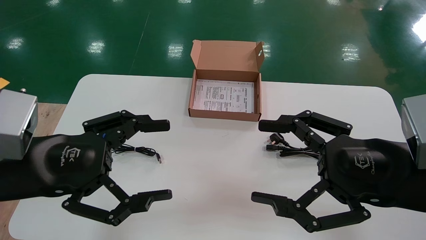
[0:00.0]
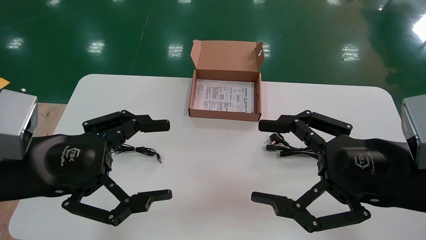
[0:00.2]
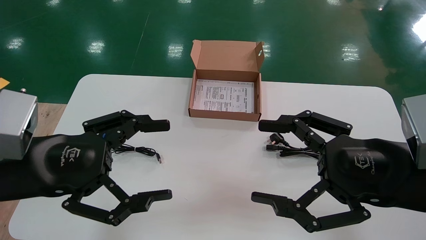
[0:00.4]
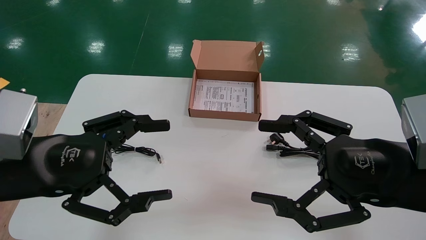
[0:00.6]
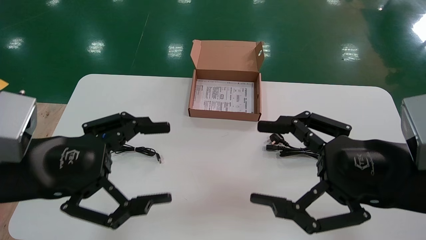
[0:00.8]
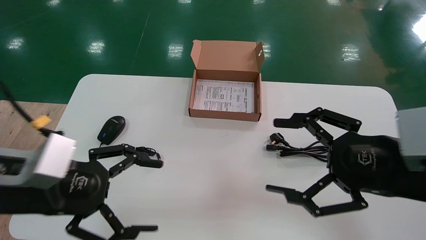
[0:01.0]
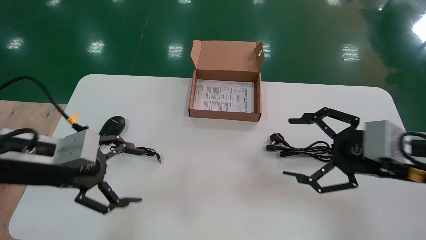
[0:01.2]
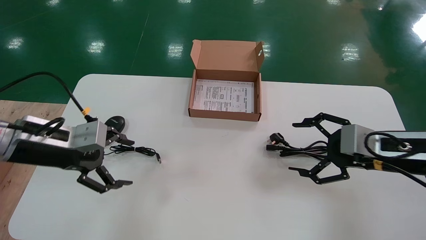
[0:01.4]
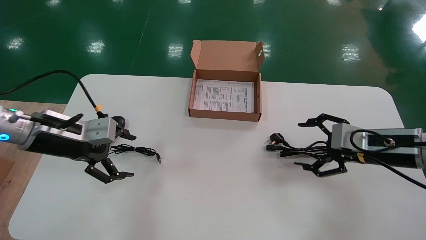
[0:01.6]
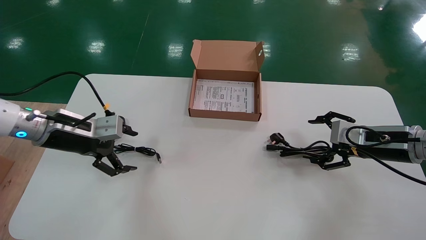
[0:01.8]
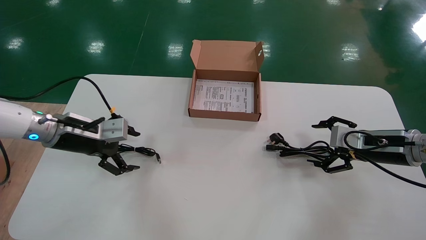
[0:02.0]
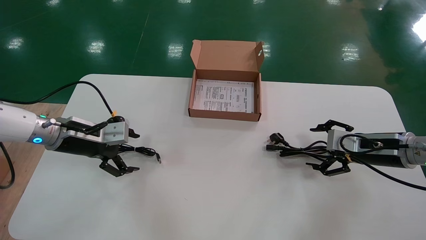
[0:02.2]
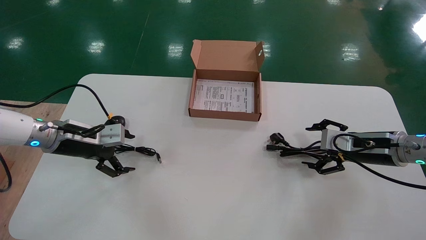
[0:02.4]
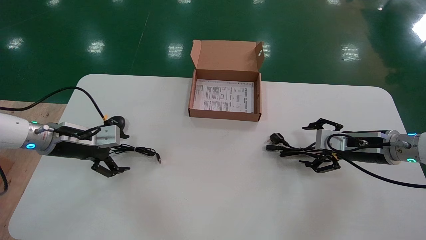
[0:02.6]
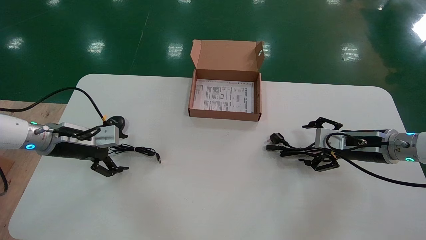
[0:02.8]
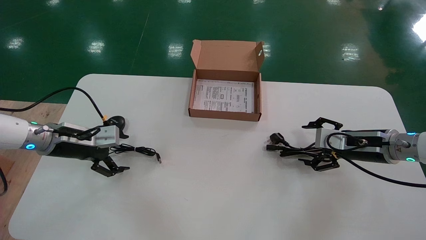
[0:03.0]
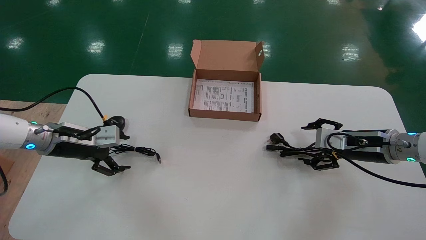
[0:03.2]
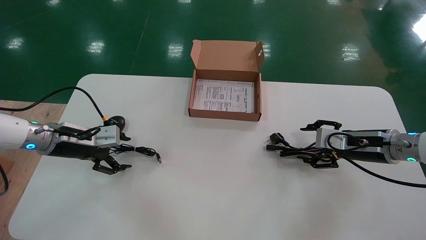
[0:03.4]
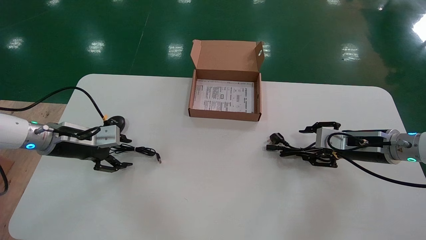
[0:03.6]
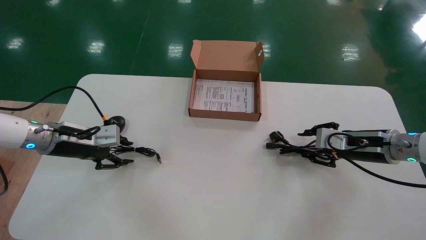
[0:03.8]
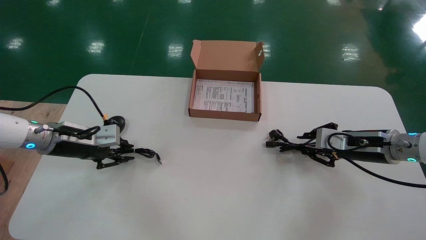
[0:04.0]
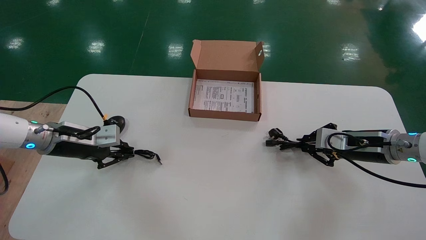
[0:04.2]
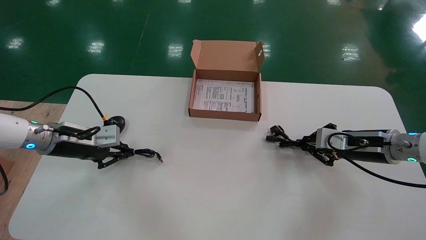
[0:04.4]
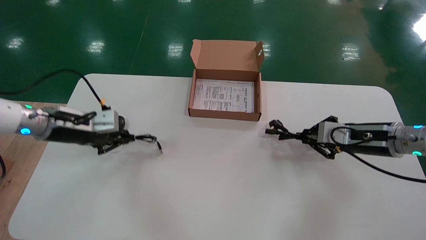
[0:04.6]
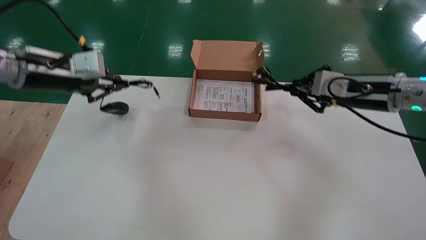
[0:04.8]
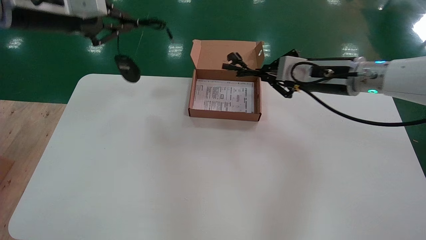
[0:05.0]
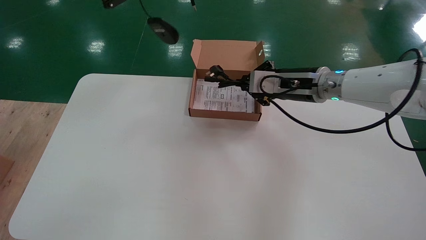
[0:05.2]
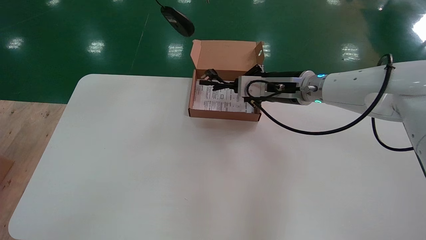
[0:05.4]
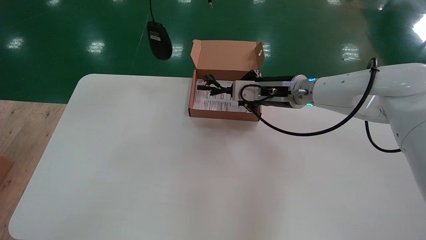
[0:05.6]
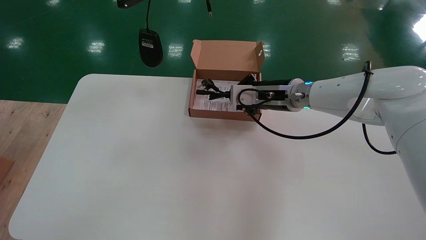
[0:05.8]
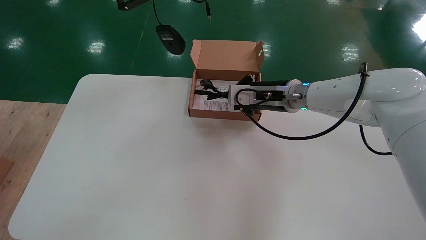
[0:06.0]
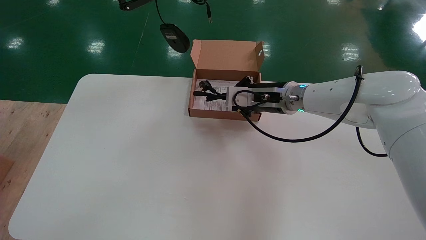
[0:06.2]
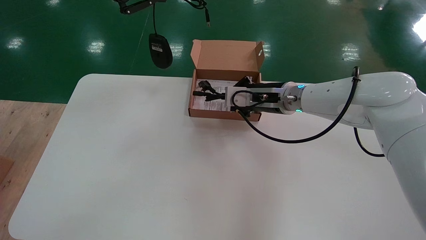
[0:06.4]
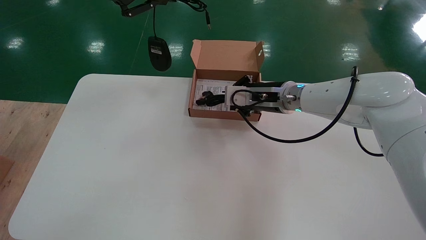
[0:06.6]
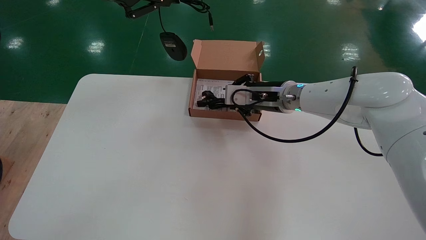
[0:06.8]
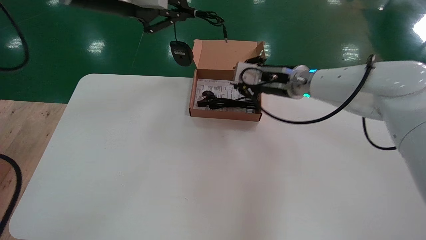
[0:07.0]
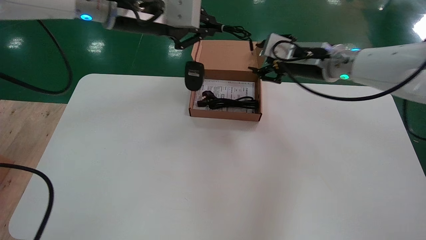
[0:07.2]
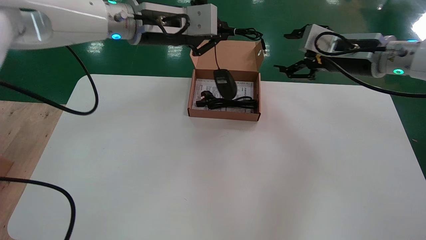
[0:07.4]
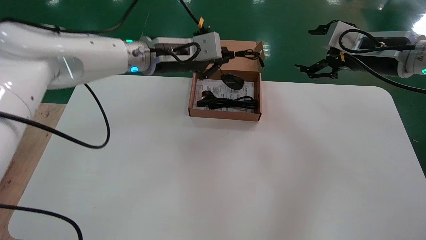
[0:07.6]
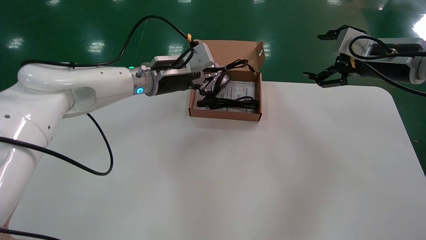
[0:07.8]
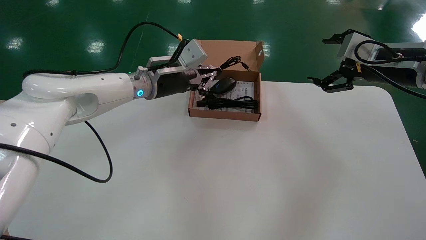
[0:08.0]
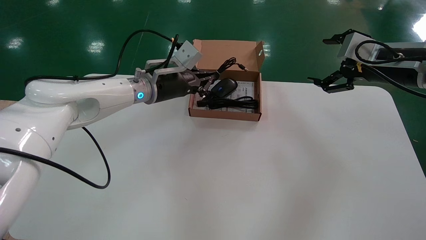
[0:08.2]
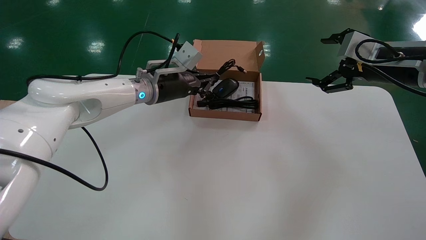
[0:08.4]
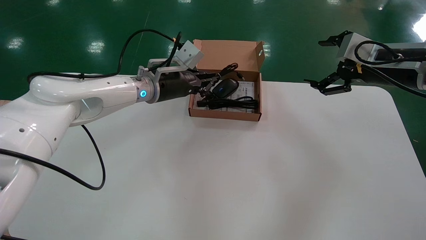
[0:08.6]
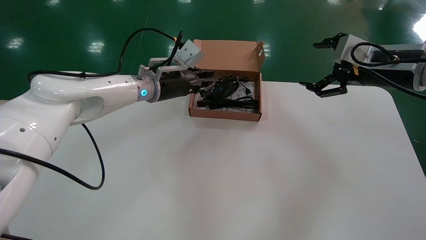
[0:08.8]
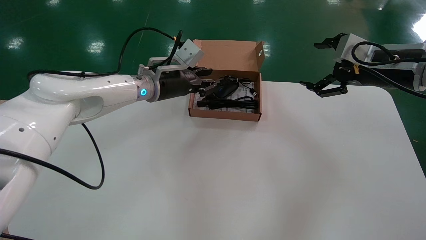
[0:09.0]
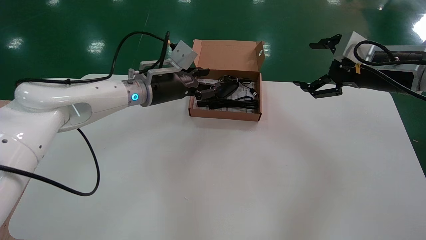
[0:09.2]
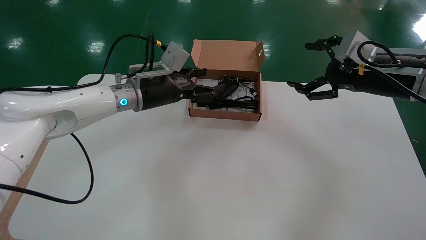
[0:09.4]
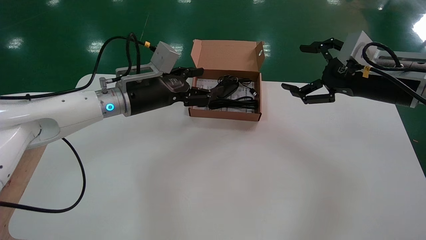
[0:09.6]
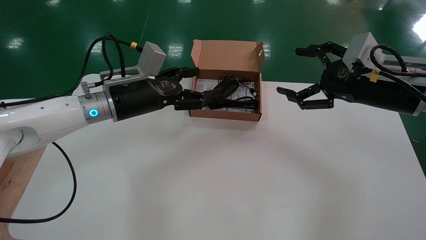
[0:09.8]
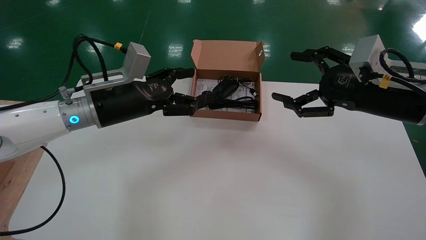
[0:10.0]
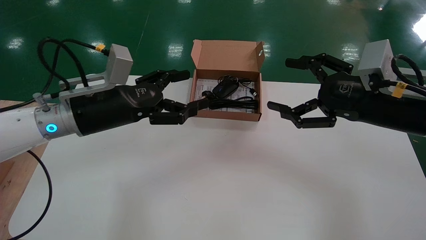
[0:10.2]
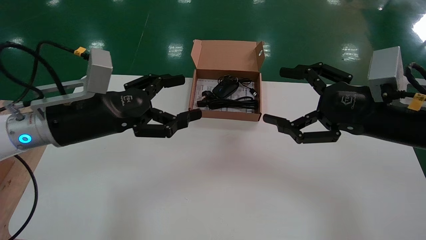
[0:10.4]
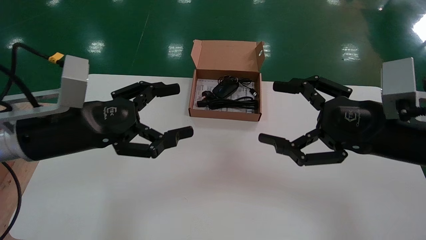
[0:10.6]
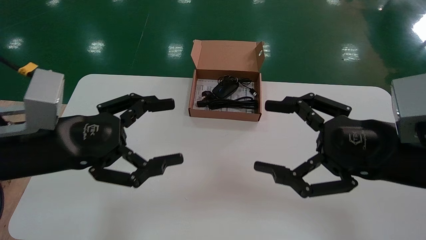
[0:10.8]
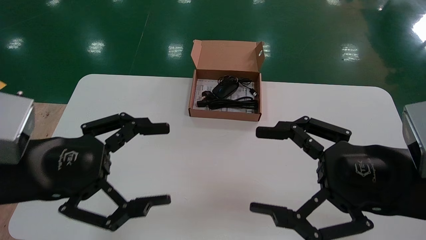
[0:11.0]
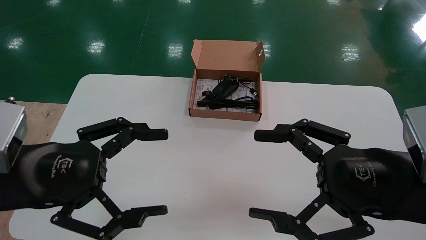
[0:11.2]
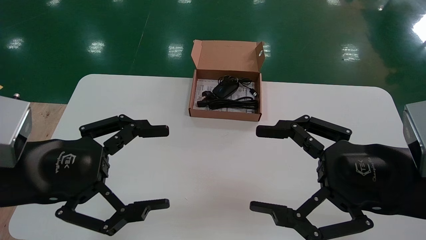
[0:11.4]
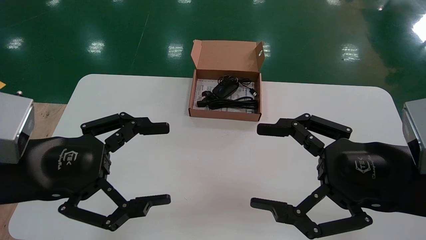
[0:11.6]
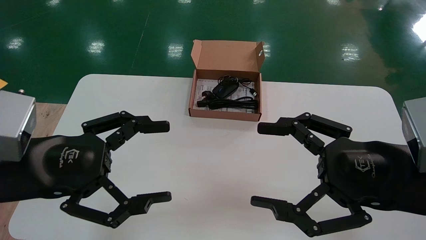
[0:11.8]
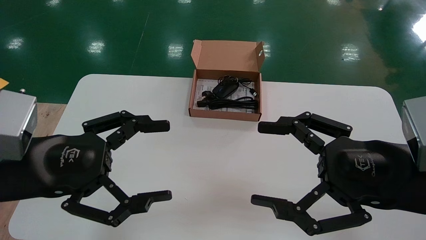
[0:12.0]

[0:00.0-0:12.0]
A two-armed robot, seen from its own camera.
Step, 0:01.4 to 0:04.4: Simultaneously pick up the mouse and power cord from the accessory packaging area.
Step, 0:04.6 to 0:09.4: Place the mouse and power cord into the box.
0:00.0 to 0:01.6: The right gripper shifts approximately 20 cm forward and to the right; the left gripper travels forward by roughly 15 cm.
0:01.6 to 0:03.0: Both grippers move forward, approximately 5 cm.
0:03.0 to 0:04.4: The right gripper closes its fingers. Meanwhile the left gripper closes its fingers.
0:04.4 to 0:06.0: The right gripper heads to the left, covering some 20 cm, while the left gripper shifts about 30 cm upward.
0:06.0 to 0:07.6: The right gripper is displaced to the right and upward by roughly 20 cm, and opens its fingers. The left gripper heads downward, forward and to the right, covering some 20 cm.
0:07.6 to 0:09.0: The left gripper shifts some 10 cm downward.
0:09.0 to 0:10.4: The left gripper is displaced backward and to the left by about 20 cm, and opens its fingers; the right gripper moves backward and to the left, about 15 cm.
0:10.4 to 0:12.0: Both grippers travel together backward, about 10 cm.

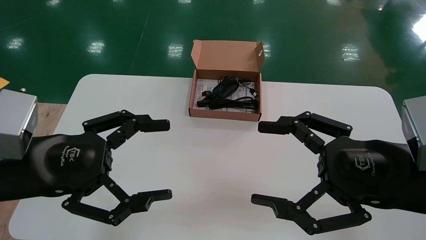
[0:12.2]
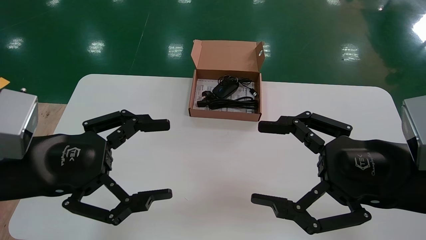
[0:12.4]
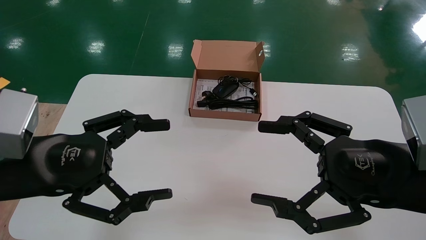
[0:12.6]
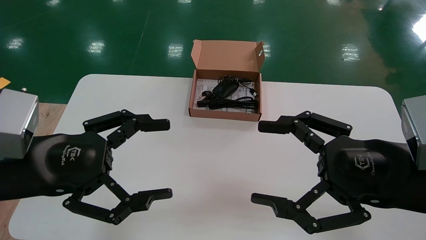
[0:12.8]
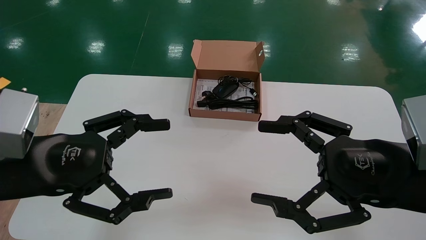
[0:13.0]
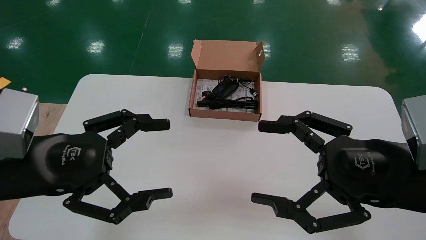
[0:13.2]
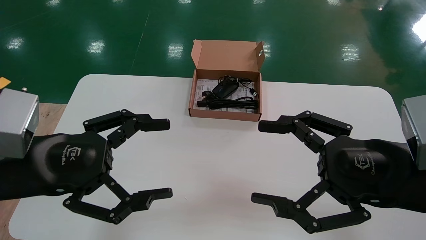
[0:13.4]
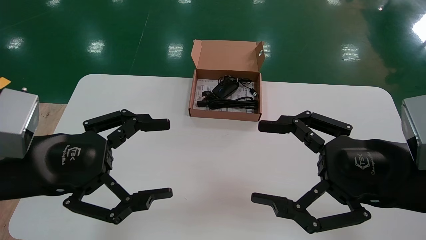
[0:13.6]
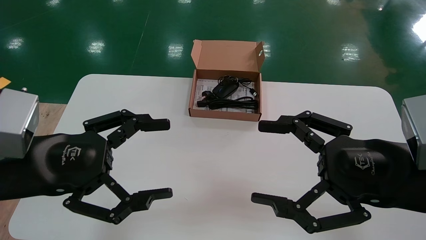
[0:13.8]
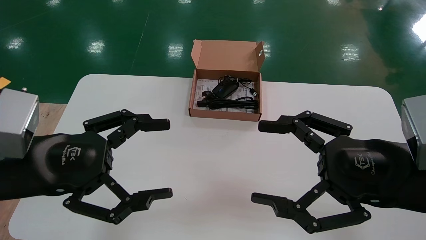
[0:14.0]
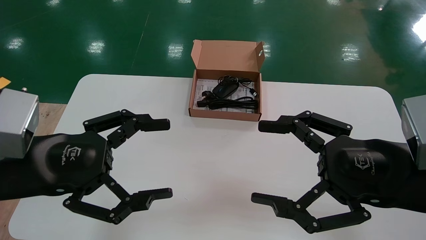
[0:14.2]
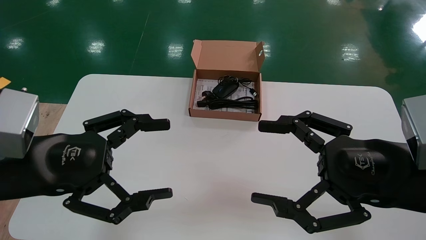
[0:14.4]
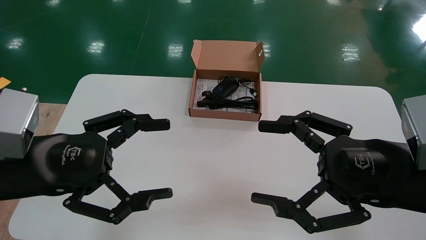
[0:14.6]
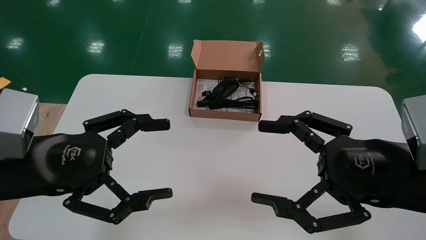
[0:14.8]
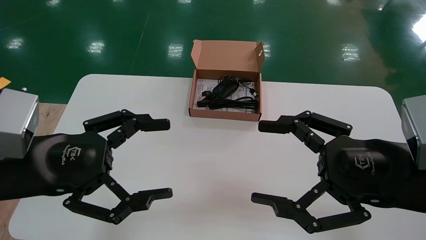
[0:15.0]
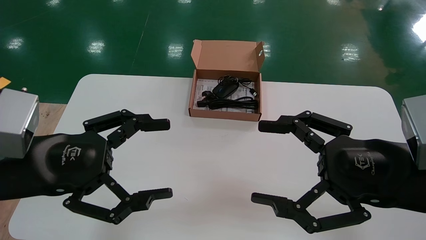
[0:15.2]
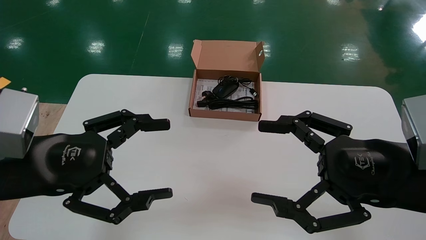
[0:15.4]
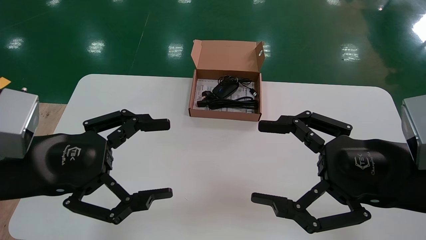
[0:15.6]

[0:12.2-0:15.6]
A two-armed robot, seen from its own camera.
0:12.2 to 0:15.6: Both grippers stay about where they are.
